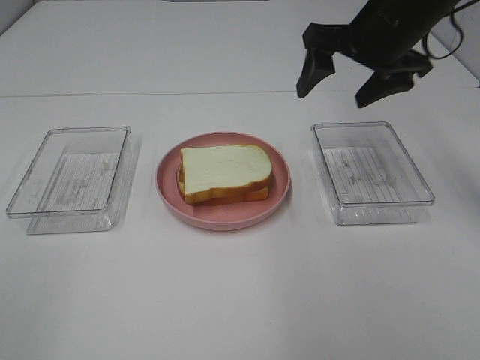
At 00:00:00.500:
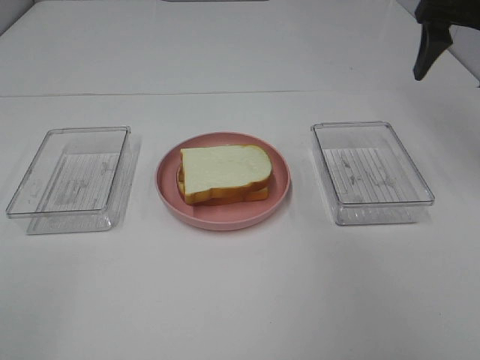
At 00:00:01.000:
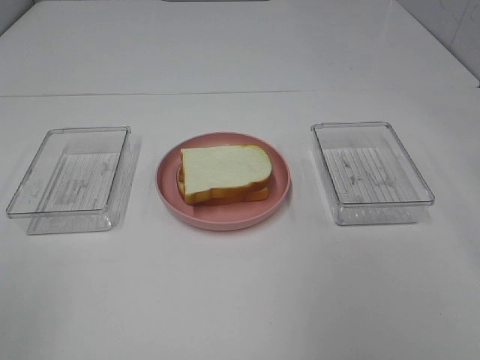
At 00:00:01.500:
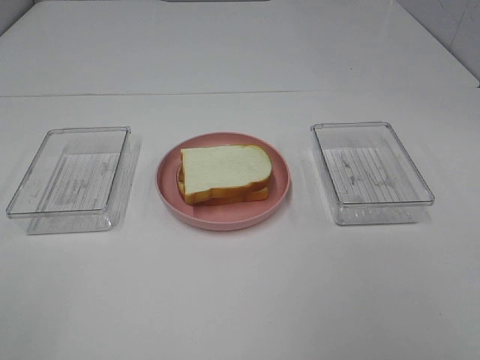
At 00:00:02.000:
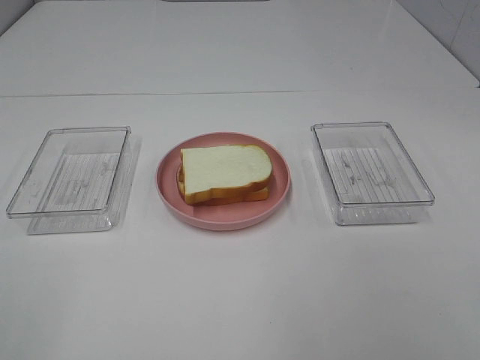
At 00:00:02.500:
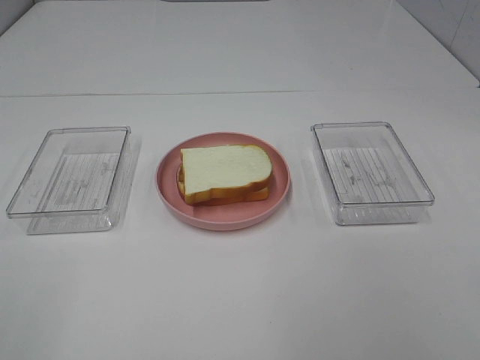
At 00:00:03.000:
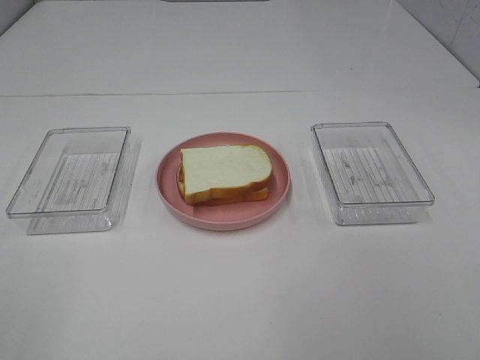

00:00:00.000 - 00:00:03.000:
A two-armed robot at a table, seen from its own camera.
Task of the whole recording: Make sandwiches.
00:00:00.000 - 00:00:01.500: The right gripper heads backward, covering some 35 cm.

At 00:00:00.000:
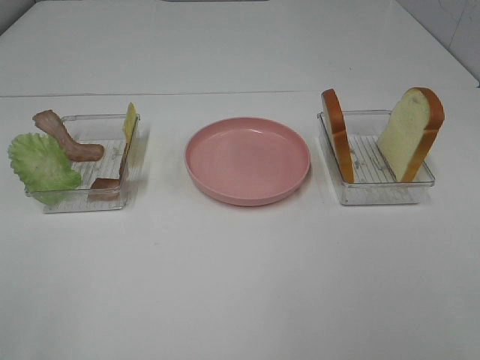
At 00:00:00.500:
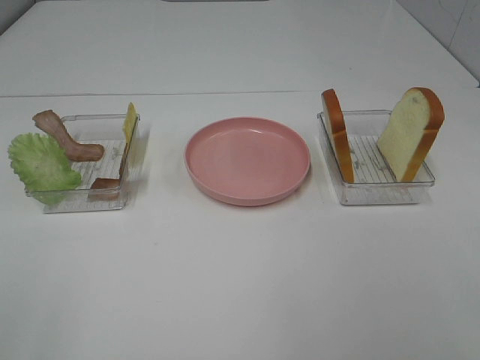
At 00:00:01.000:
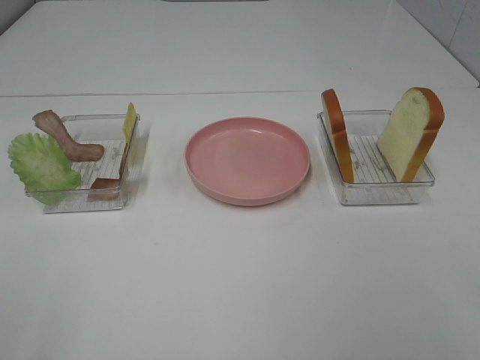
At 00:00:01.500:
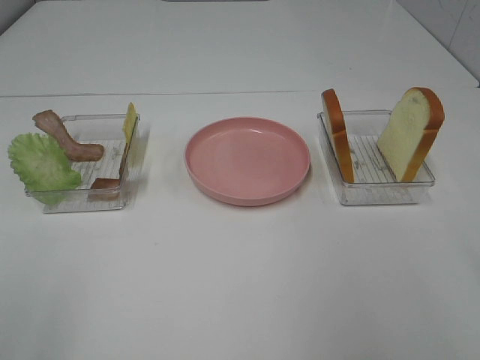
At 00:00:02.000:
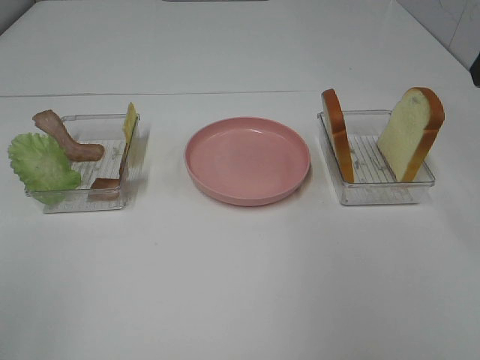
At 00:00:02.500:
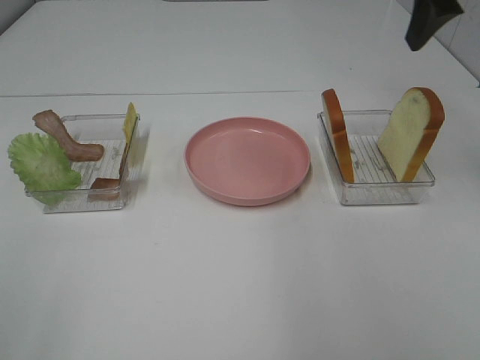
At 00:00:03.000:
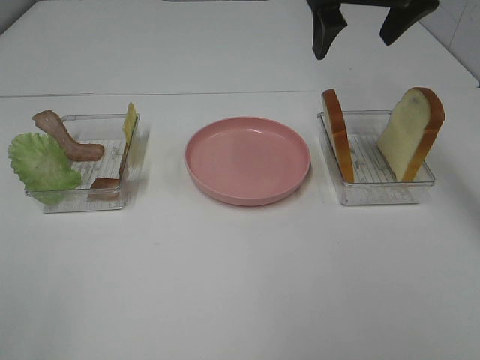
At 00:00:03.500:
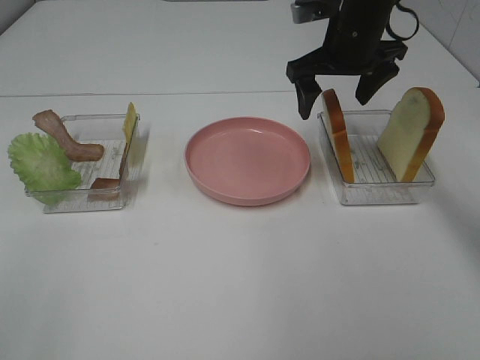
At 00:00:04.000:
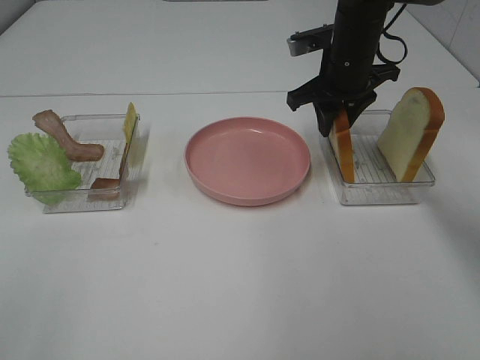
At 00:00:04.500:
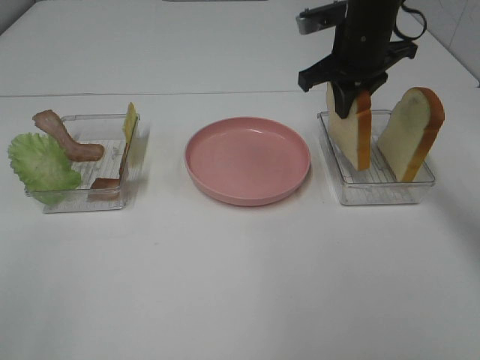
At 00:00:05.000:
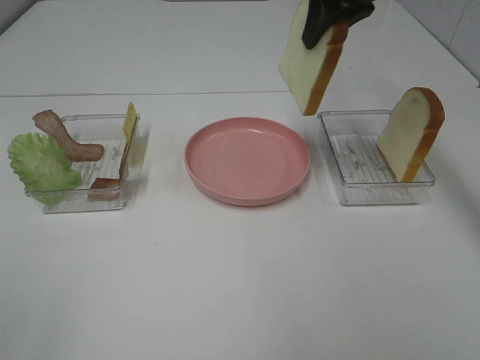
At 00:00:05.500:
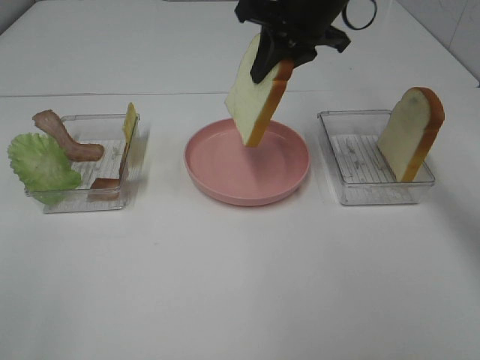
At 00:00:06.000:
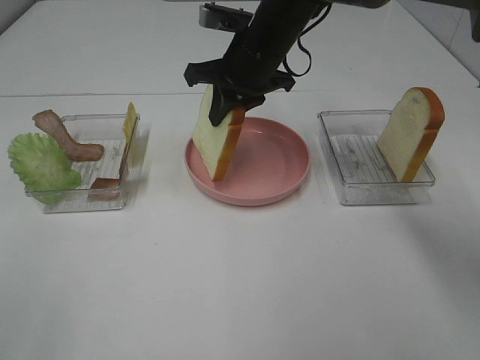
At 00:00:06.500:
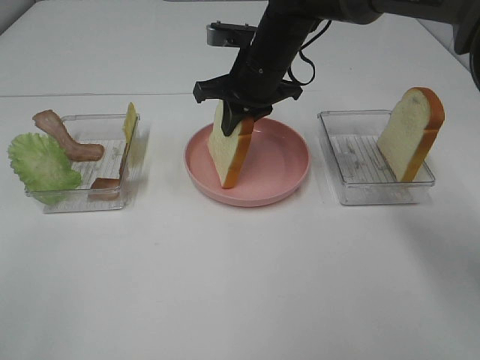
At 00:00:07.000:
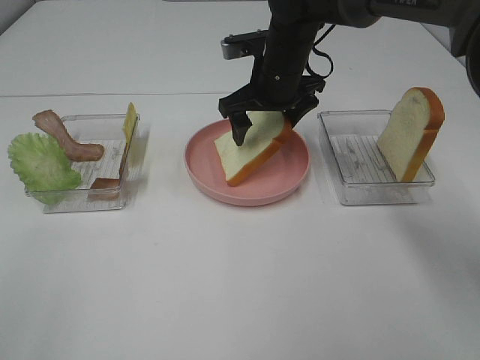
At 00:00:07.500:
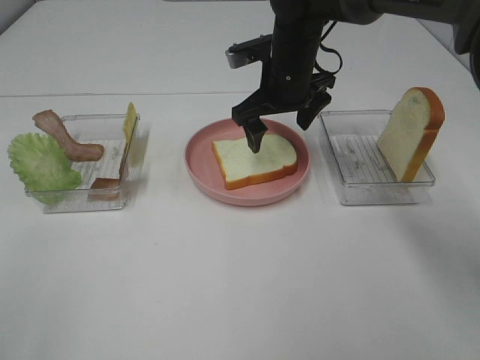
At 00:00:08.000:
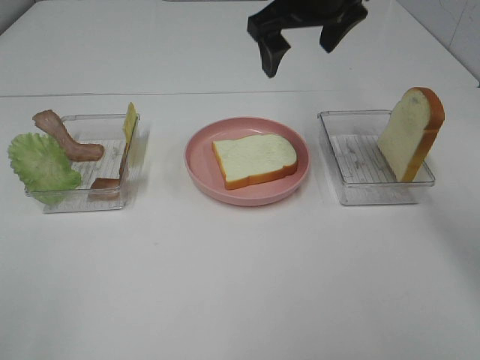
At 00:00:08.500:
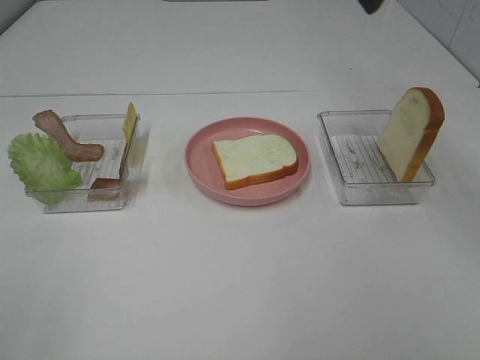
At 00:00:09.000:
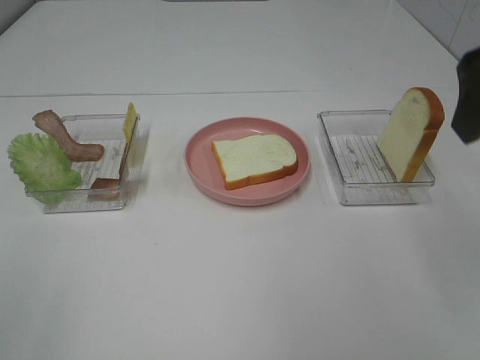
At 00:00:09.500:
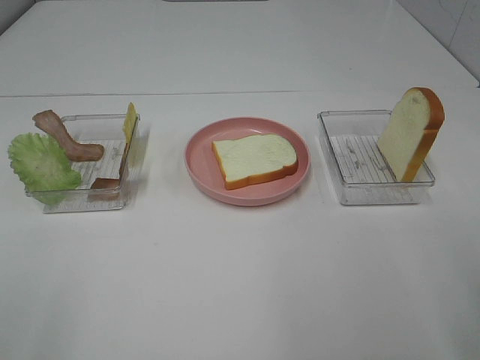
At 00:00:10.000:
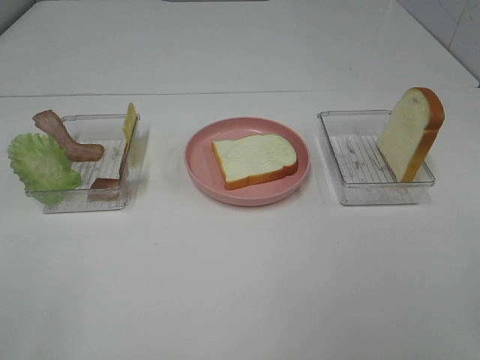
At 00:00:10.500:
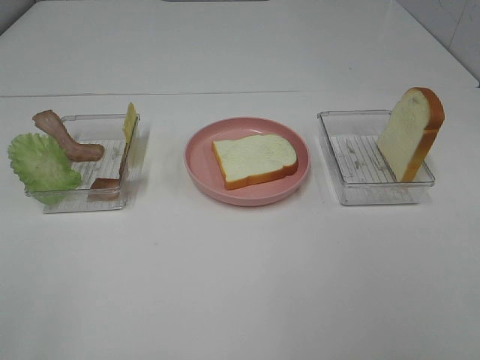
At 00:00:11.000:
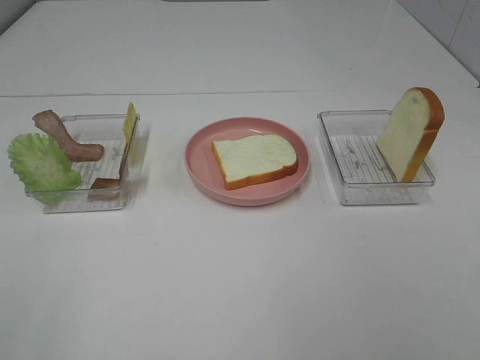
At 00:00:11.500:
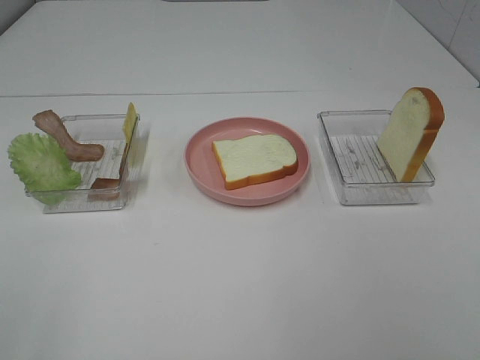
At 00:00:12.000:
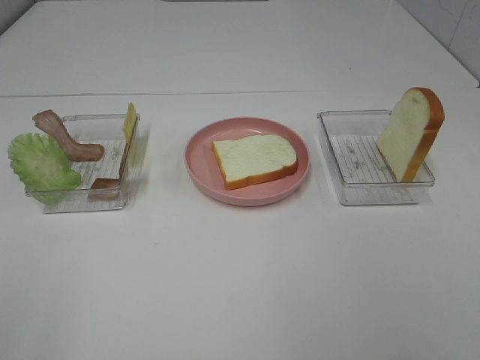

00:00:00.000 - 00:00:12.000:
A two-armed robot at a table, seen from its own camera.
Task of the whole recording: Make sandwiches.
Step, 00:00:00.000 - 00:00:04.000: Right hand:grab the bread slice.
Step, 00:00:04.500 - 00:00:07.000: Right hand:place the bread slice on the plate.
00:00:02.000 - 00:00:04.000: The right gripper travels forward, downward and to the left by some 30 cm, and closes.
00:00:04.000 - 00:00:06.000: The right gripper goes some 10 cm to the left, and moves about 15 cm upward and comes back.
00:00:06.000 - 00:00:08.000: The right gripper moves upward and to the right, roughly 10 cm, and opens.
00:00:08.000 - 00:00:10.000: The right gripper moves backward and to the right, roughly 40 cm.

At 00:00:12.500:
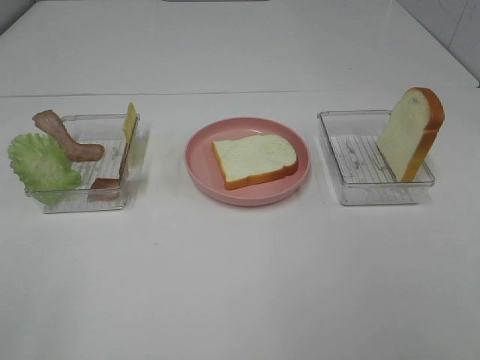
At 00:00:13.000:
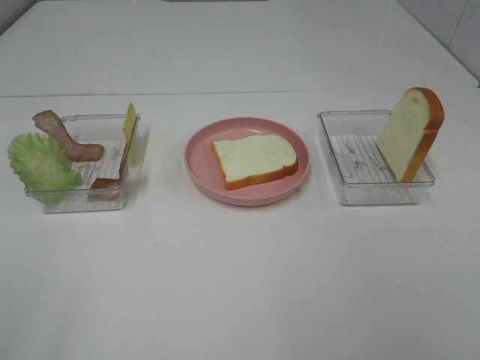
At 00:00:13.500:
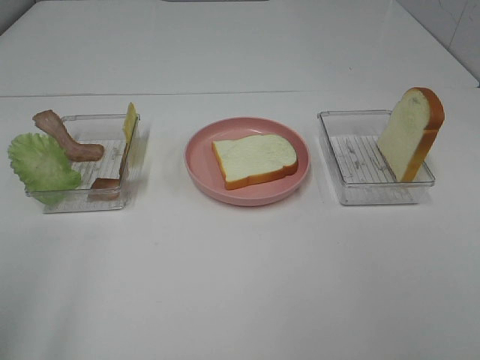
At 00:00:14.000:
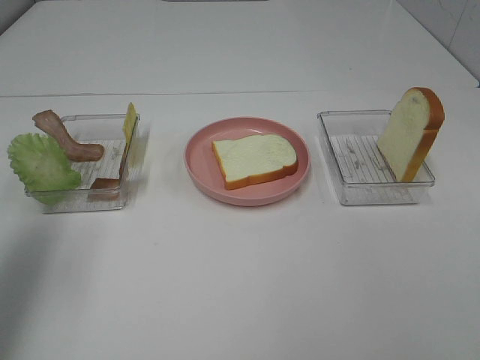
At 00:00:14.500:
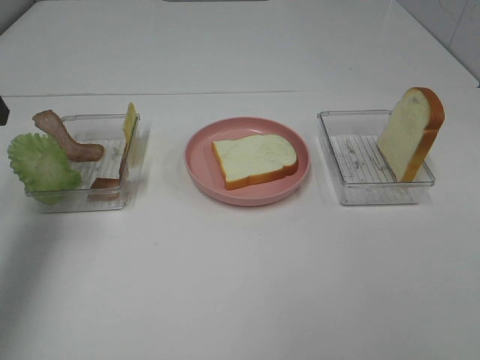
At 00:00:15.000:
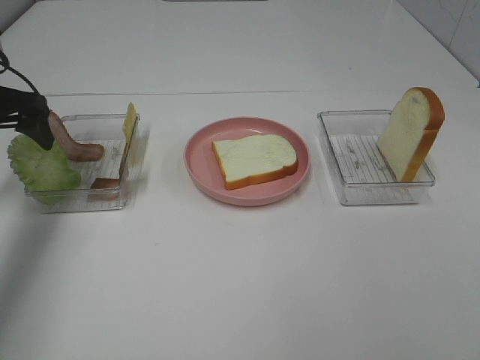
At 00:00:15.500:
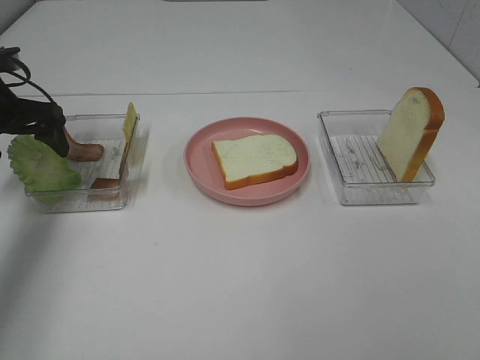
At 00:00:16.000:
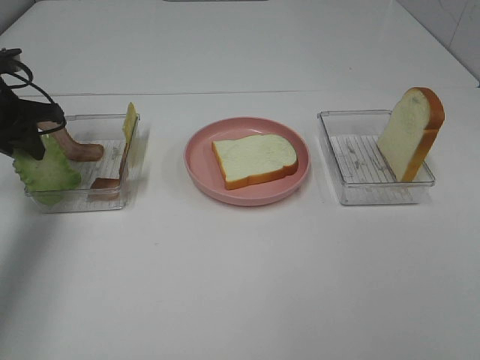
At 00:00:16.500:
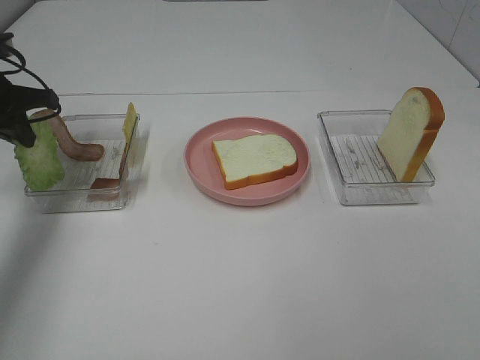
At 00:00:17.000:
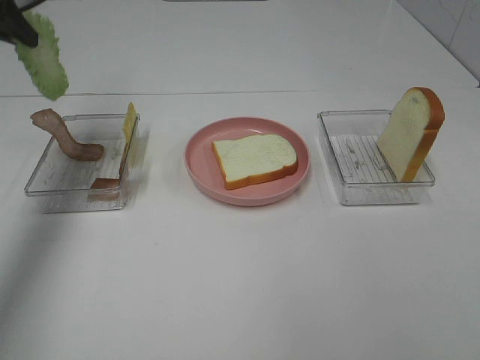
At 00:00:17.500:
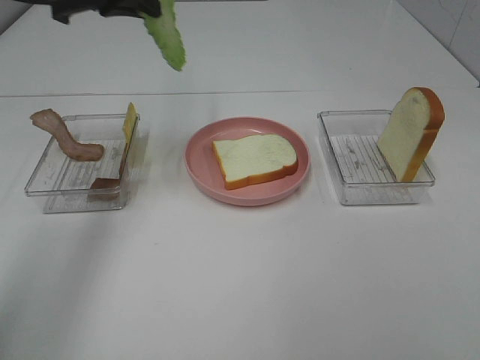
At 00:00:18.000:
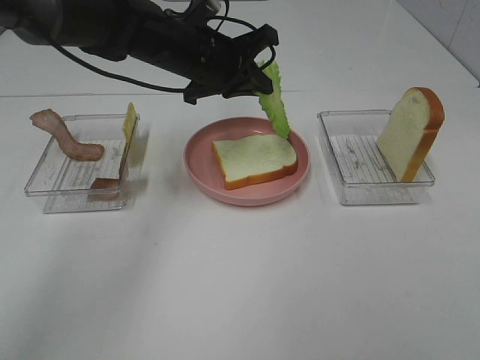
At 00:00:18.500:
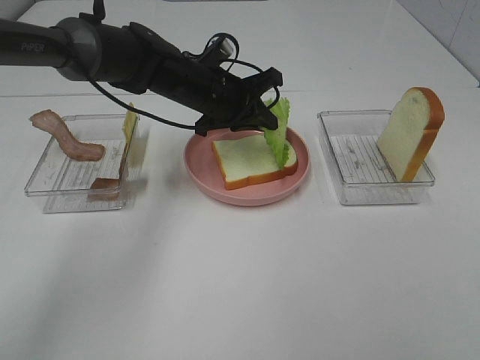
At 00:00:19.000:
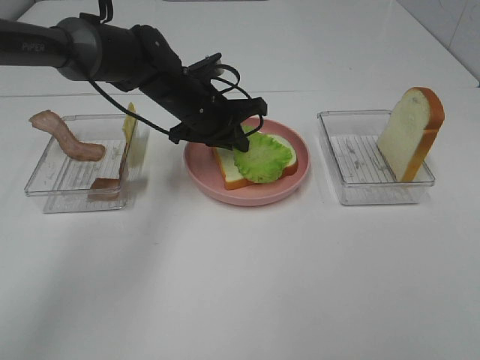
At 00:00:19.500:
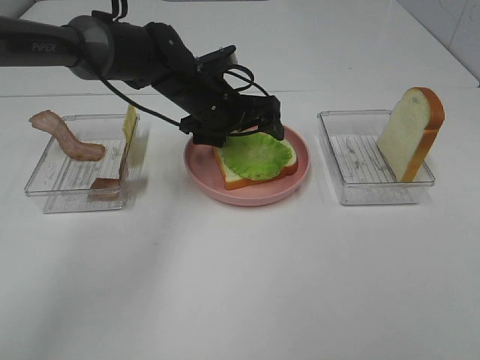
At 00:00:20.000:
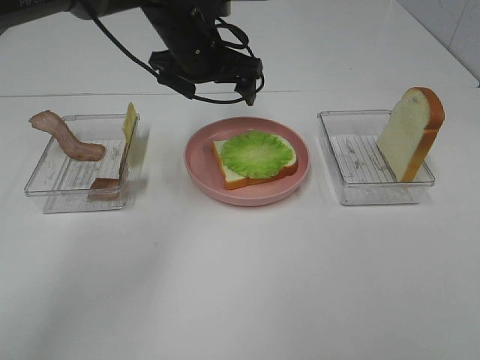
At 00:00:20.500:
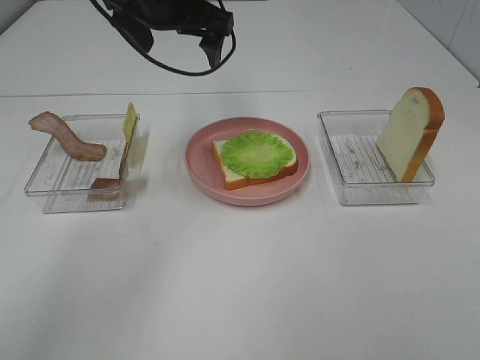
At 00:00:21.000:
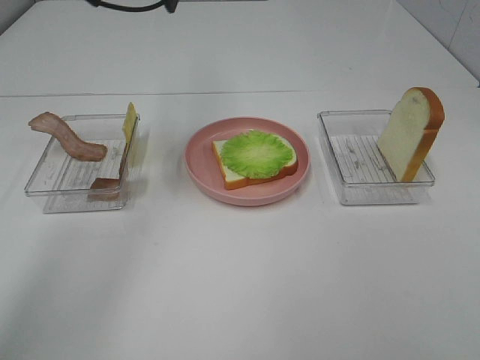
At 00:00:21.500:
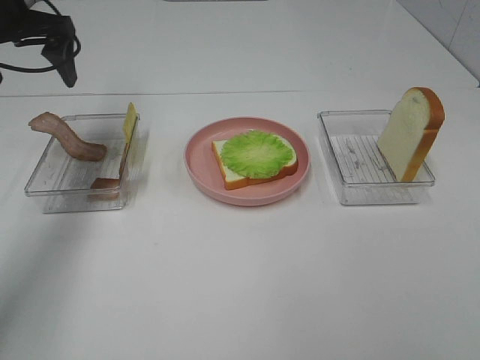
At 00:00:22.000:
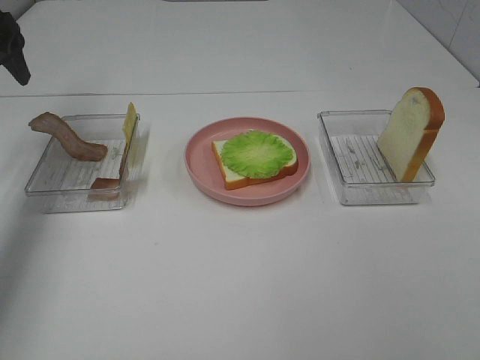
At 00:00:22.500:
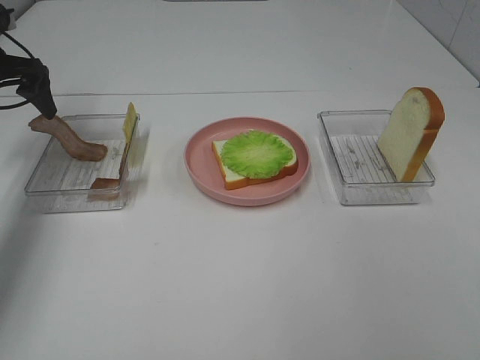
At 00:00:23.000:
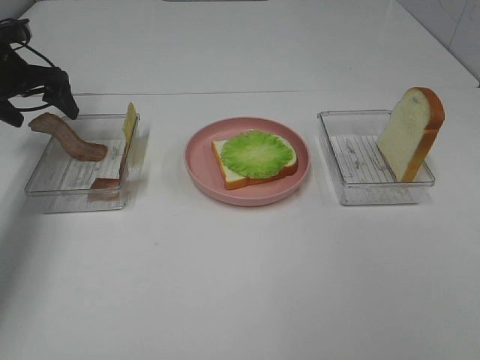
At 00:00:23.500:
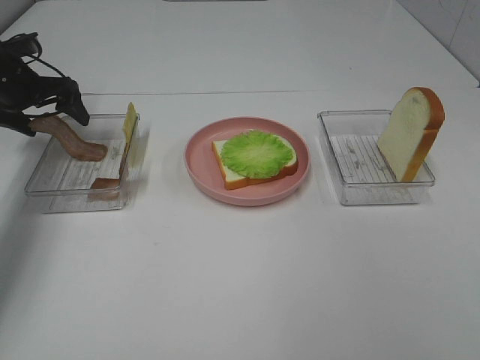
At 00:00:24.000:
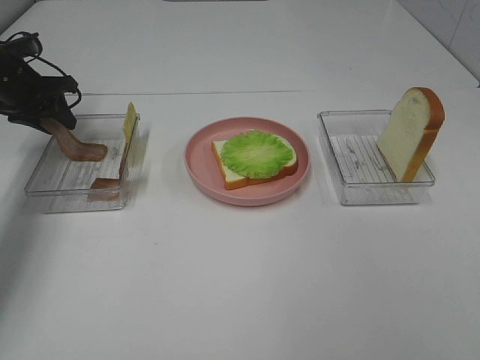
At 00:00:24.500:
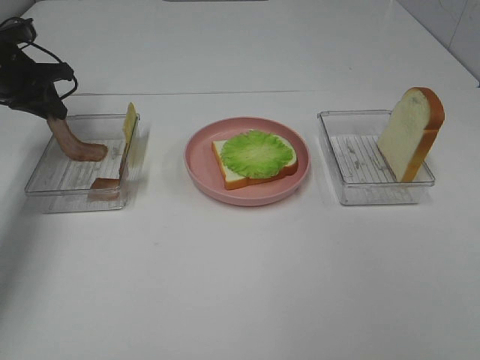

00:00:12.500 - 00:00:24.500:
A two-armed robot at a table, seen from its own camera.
Task of the whole recording: Make sandwiches.
Step, 00:00:12.500 - 00:00:16.500: Left hand:grab the lettuce slice.
Step, 00:00:17.000 - 00:00:19.500: Left hand:place the lettuce slice on the bread slice.
00:00:12.500 - 00:00:14.500: The left gripper travels forward by some 30 cm.
00:00:14.500 - 00:00:16.500: The left gripper moves forward and downward, about 10 cm, and closes.
00:00:16.500 - 00:00:18.500: The left gripper heads to the right, covering some 25 cm.
00:00:18.500 - 00:00:20.500: The left gripper shifts some 15 cm upward, and opens.
00:00:20.500 - 00:00:22.500: The left gripper shifts approximately 25 cm to the left.
00:00:22.500 - 00:00:24.500: The left gripper closes up.
